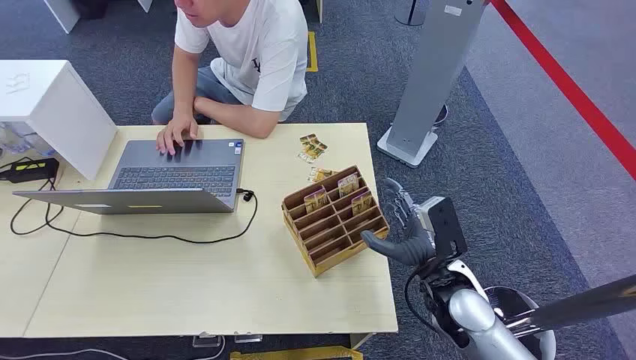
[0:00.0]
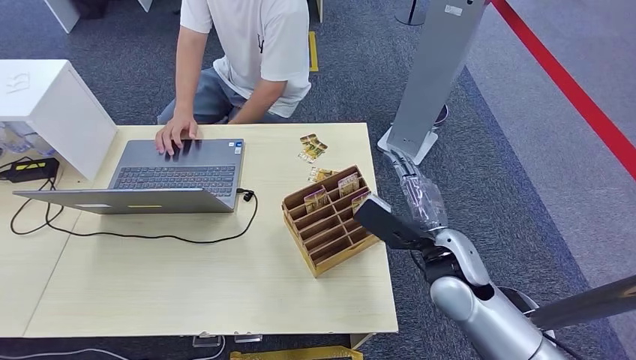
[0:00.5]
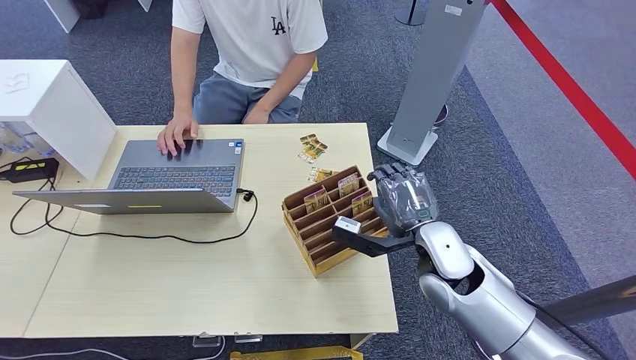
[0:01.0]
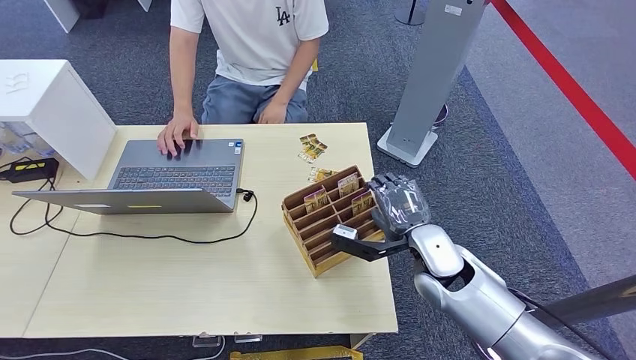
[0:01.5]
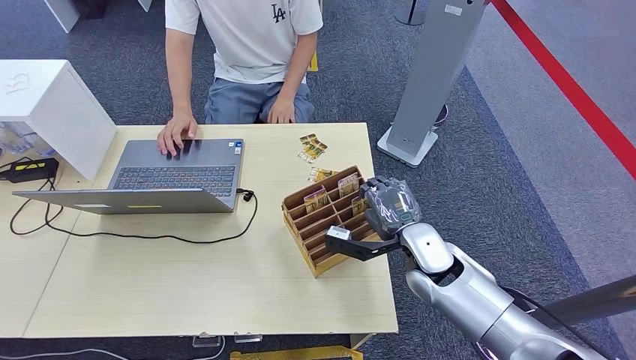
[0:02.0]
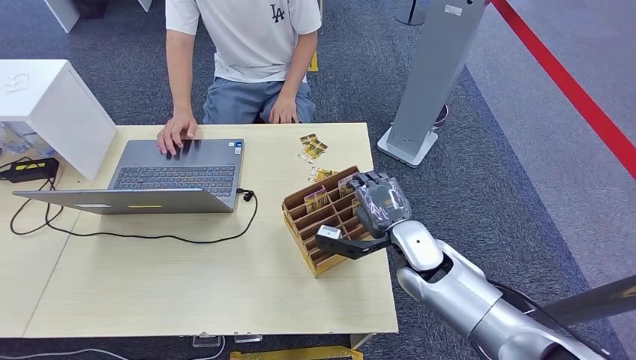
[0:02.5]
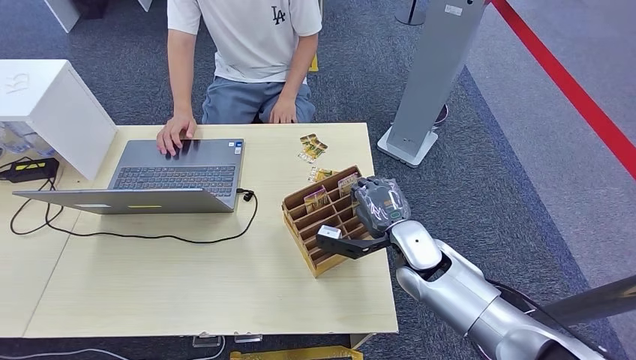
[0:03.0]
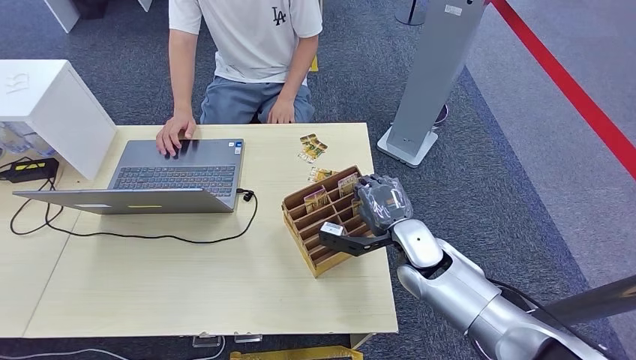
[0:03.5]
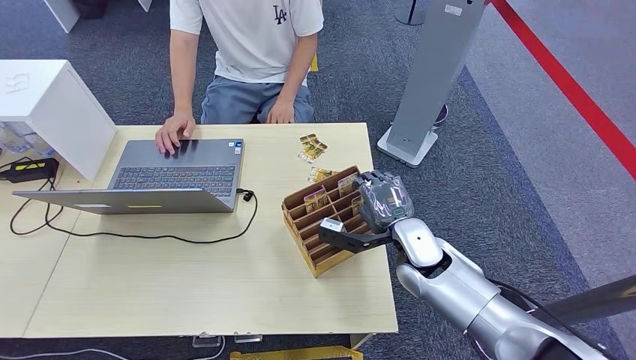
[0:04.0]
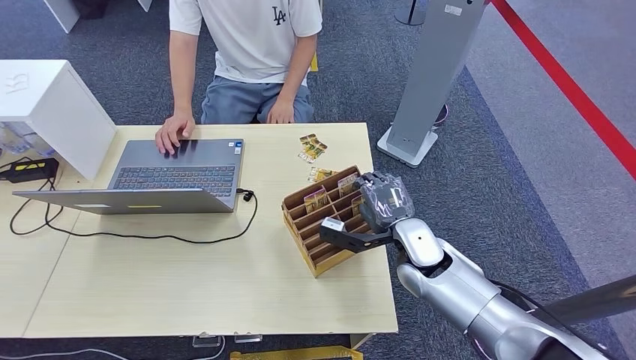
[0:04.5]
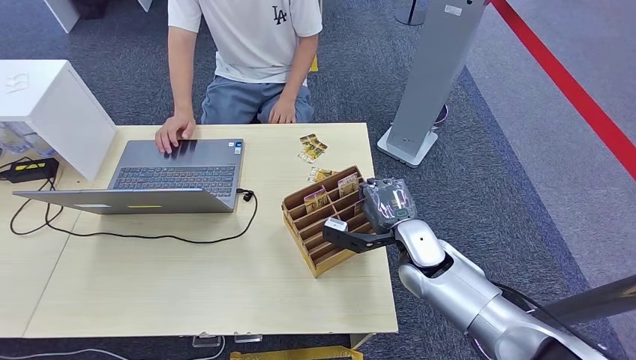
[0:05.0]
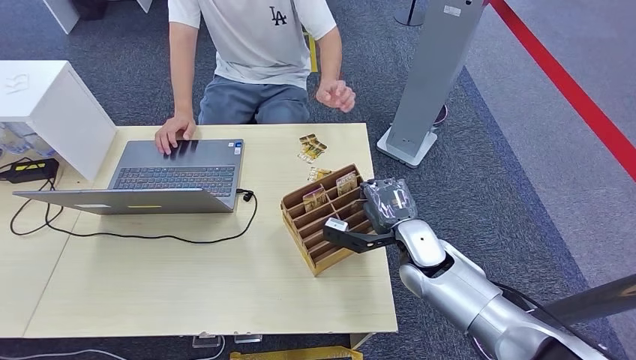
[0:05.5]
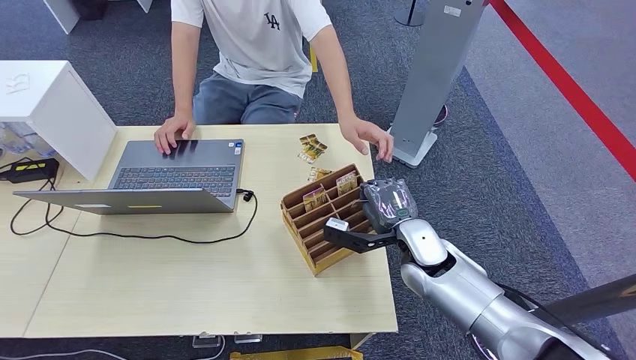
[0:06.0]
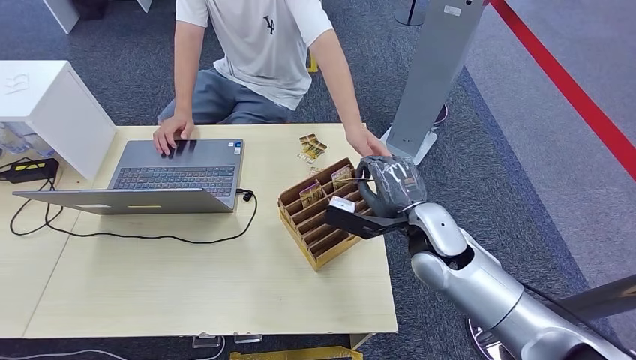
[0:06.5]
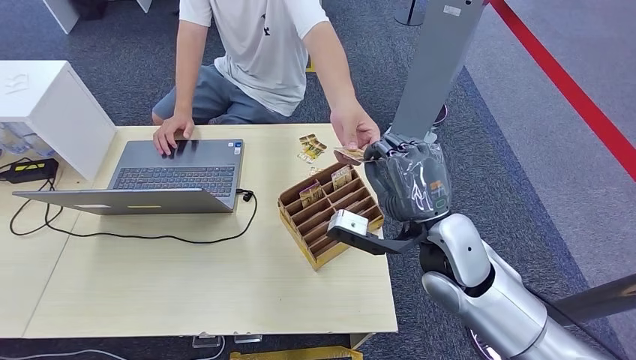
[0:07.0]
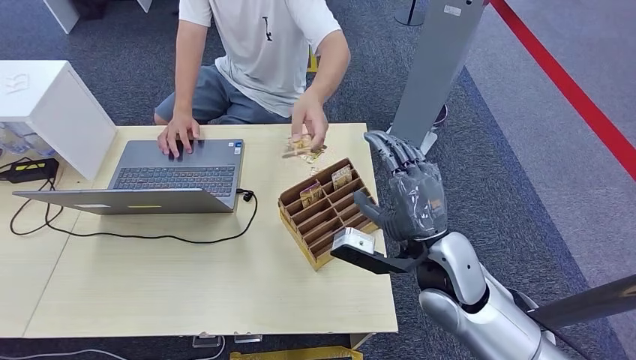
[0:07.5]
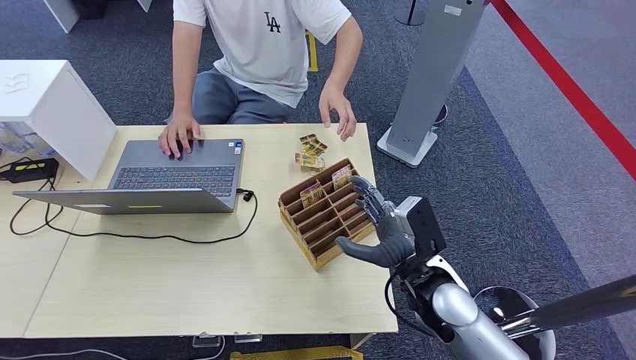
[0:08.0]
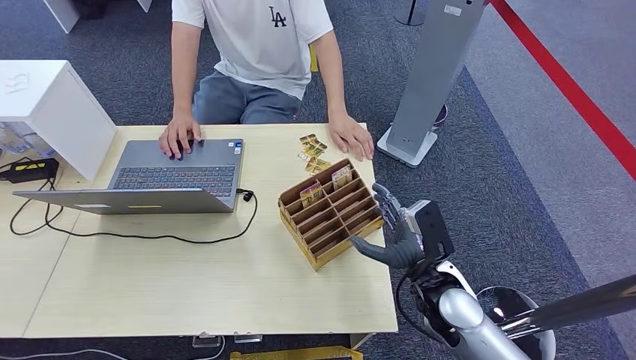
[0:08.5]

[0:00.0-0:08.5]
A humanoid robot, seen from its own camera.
Step, 0:00.0 to 0:06.0: Pick up the room card from the card holder.
Step, 0:06.5 to 0:08.0: Hand the room card to the target.
0:02.0 to 0:04.0: The hands make only small movements.
0:04.0 to 0:06.5: The right hand shifts about 5 cm upward.
0:06.5 to 0:08.5: The right hand is displaced backward and downward by about 10 cm.
